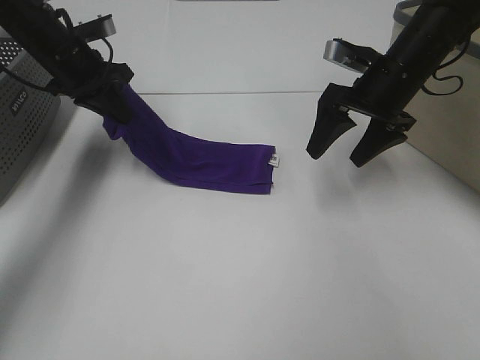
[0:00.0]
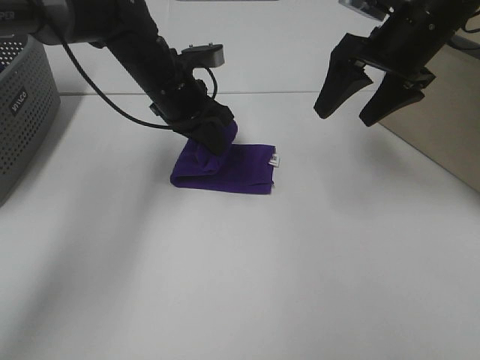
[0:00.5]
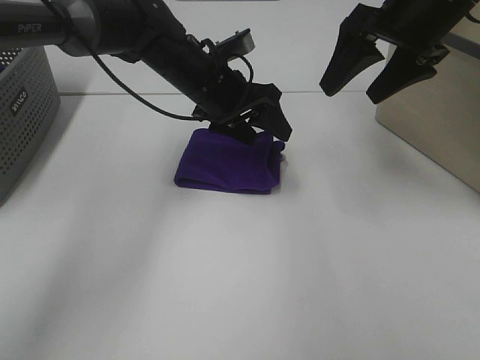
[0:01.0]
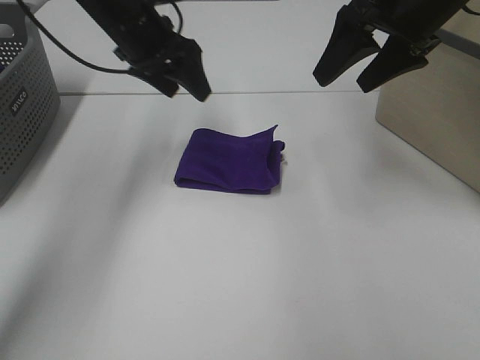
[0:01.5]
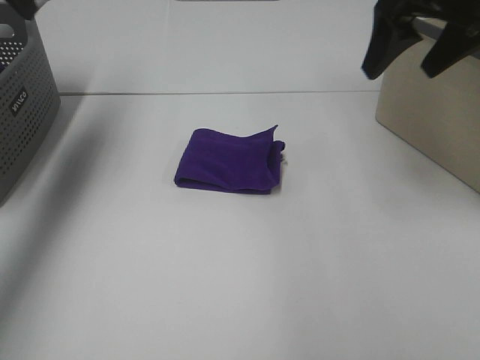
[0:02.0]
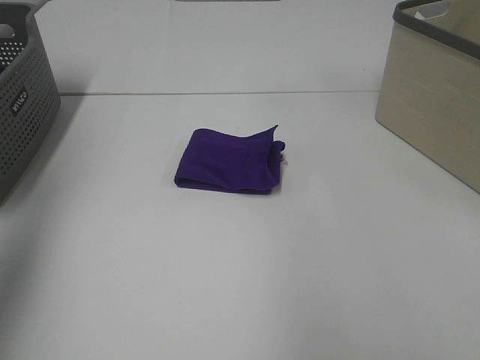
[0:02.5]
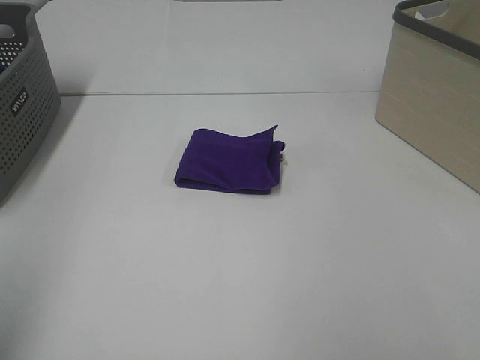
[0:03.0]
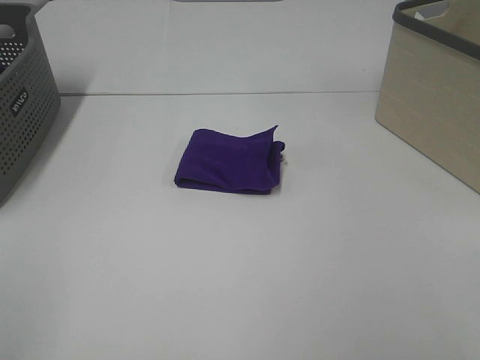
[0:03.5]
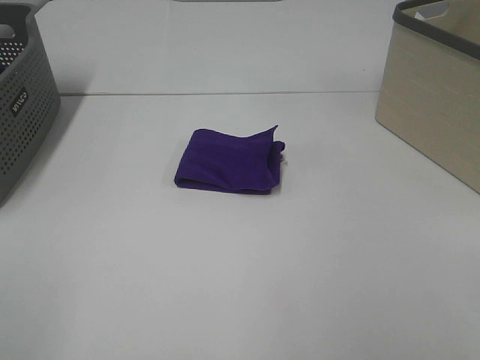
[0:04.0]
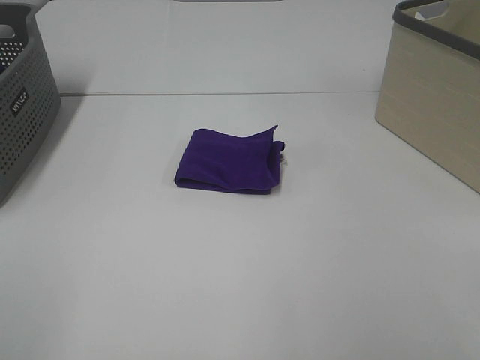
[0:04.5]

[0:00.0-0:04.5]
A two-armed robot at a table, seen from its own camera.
Task of the whole recording: Fold towels.
0:00.0 to 0:02.0: The two grippers go roughly 15 cm upward. The left gripper travels to the right and back again, roughly 20 cm each way, and opens.
0:02.0 to 0:04.5: Both grippers travel together backward, roughly 40 cm.

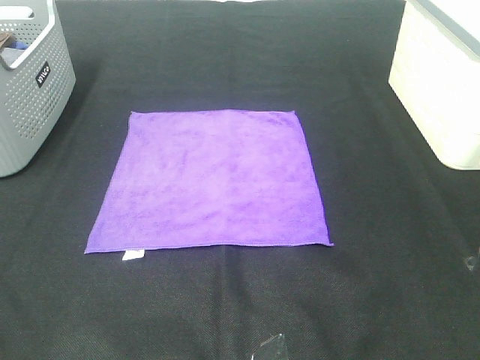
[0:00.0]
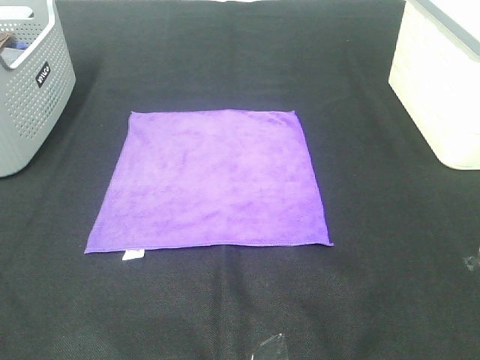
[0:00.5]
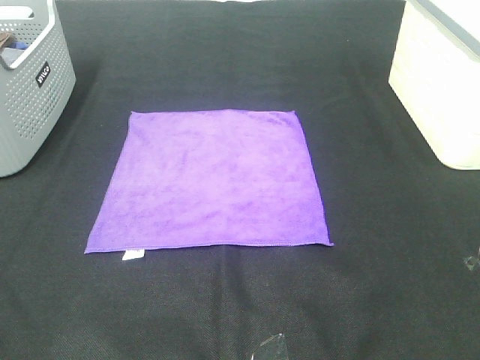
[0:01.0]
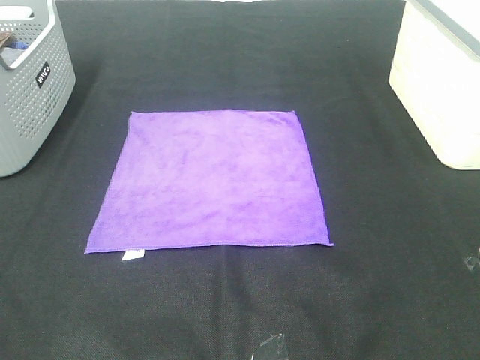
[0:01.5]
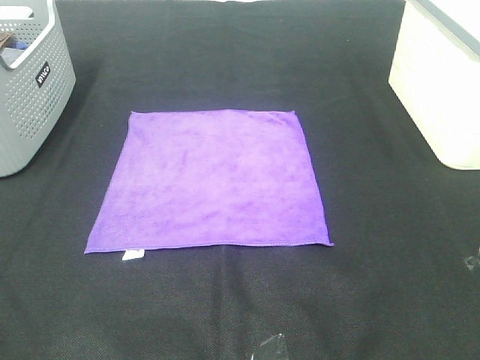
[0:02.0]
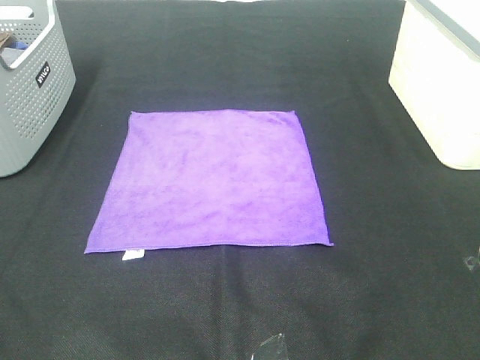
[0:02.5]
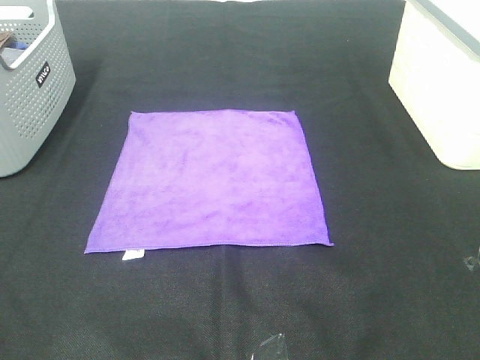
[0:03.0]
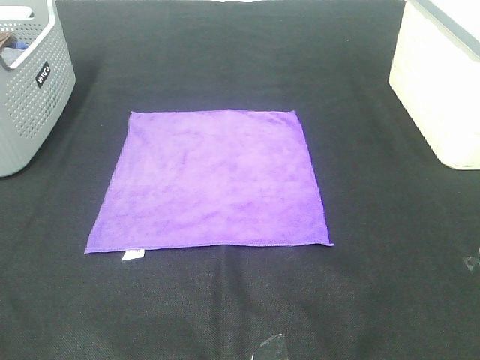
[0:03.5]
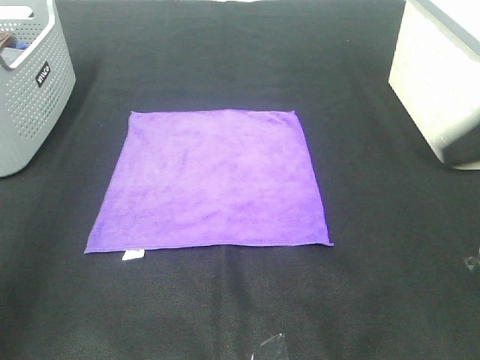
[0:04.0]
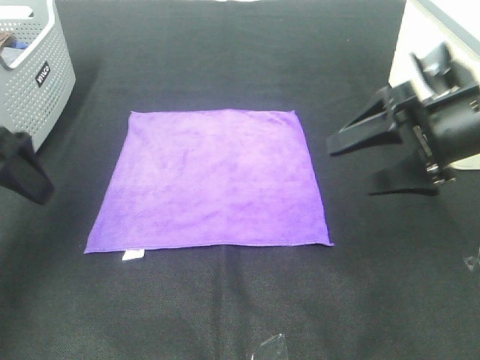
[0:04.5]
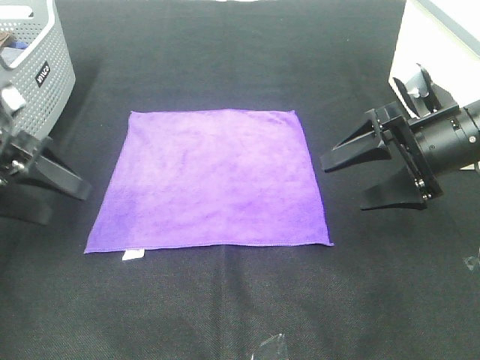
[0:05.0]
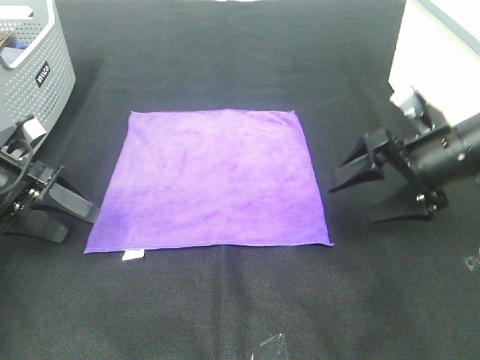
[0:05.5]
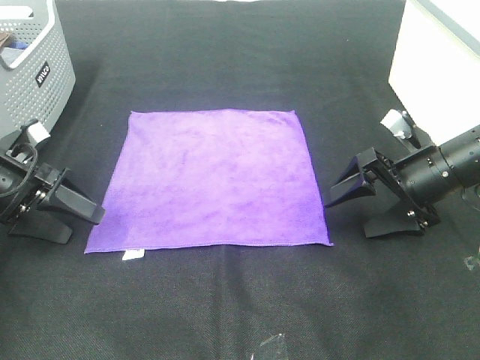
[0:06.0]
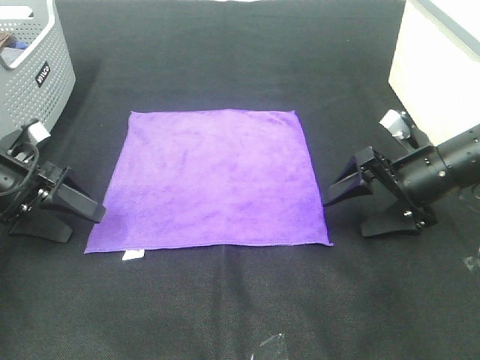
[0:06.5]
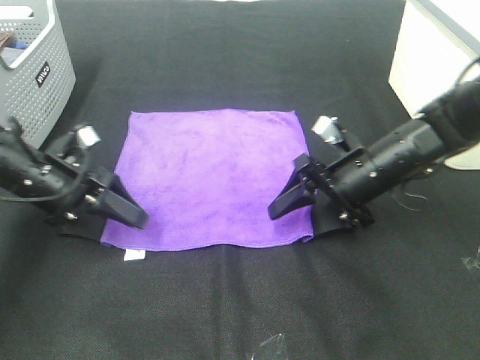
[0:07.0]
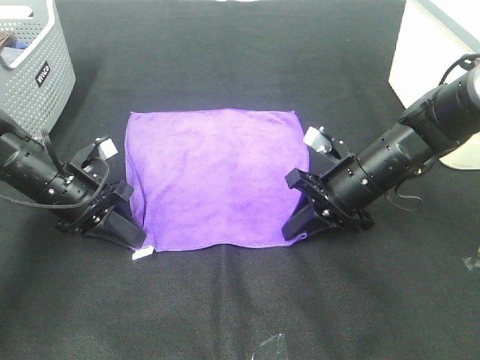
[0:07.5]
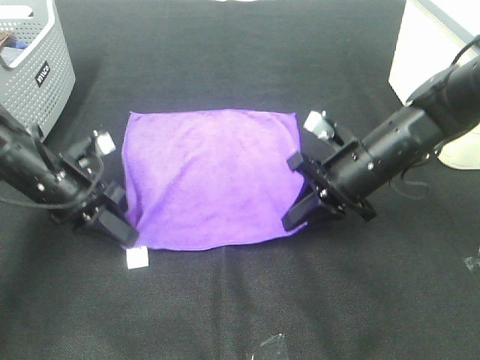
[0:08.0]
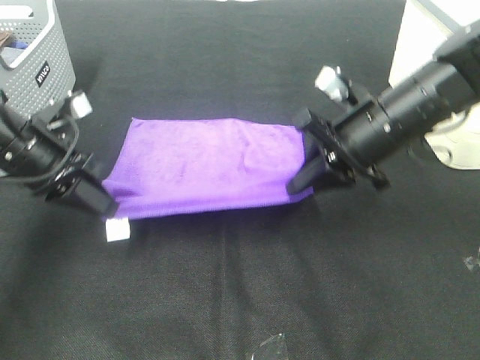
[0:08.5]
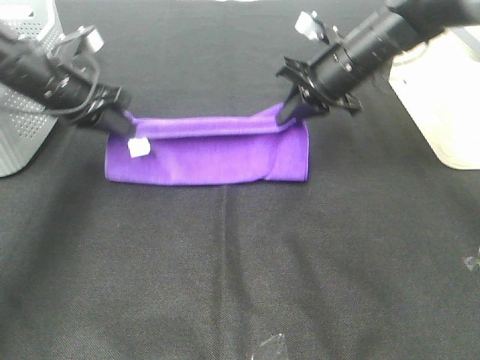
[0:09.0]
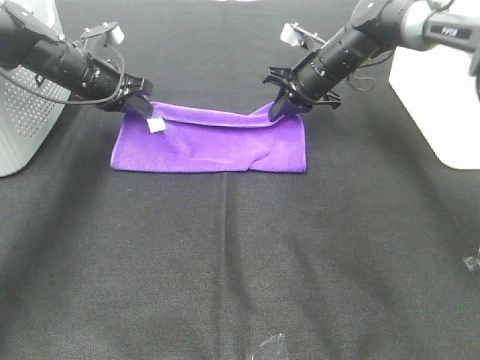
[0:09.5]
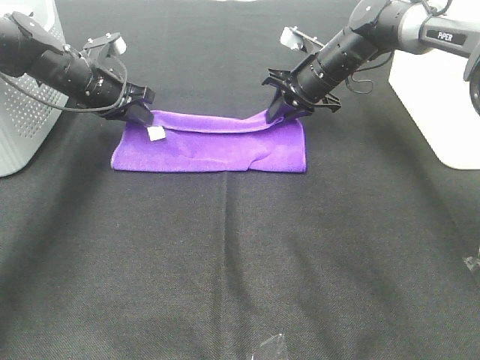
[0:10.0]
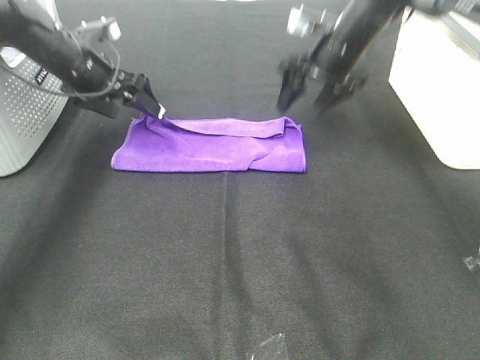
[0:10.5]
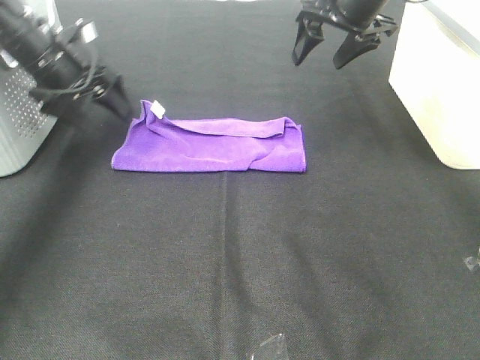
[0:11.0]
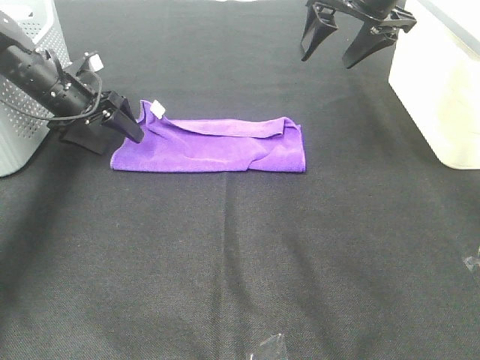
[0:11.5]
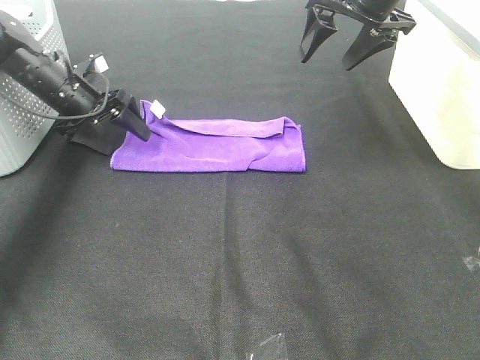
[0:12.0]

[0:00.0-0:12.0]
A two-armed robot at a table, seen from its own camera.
Task of the whole recording: Fold towels.
Step, 0:00.0 to 0:07.5: Left hand: grab the bottom left corner of purple towel.
Step, 0:00.0 to 0:07.5: Right hand: grab the bottom right corner of purple towel.
Step, 0:08.0 to 0:09.5: Left hand: fold the purple towel up.
Step, 0:08.0 to 0:09.5: Right hand: fold the purple towel up.
0:00.0 to 0:02.0: Neither gripper changes place.
0:02.0 to 0:04.0: The grippers both shift forward by approximately 20 cm.
0:04.0 to 0:06.0: Both grippers move downward and forward, about 30 cm.
0:06.0 to 0:08.0: The right gripper travels to the left by some 10 cm, and closes up. Meanwhile the left gripper travels to the right by about 10 cm, and closes its fingers.
0:08.0 to 0:10.0: The grippers both shift forward by some 20 cm.
0:10.0 to 0:12.0: The right gripper shifts about 15 cm upward and backward, and opens up. Meanwhile the left gripper opens its fingers.

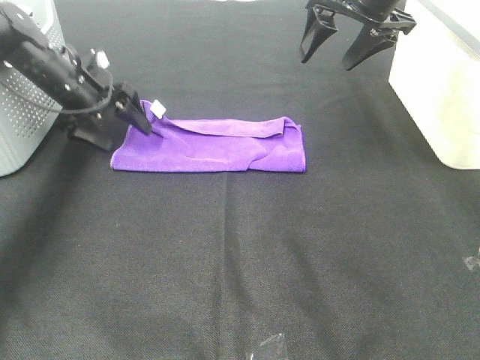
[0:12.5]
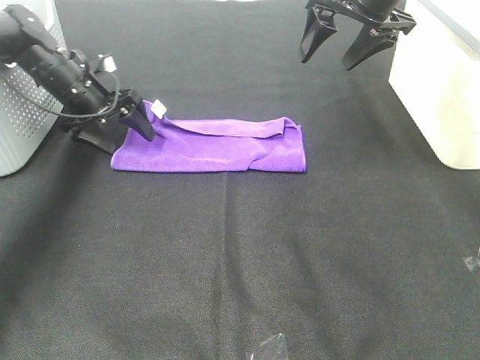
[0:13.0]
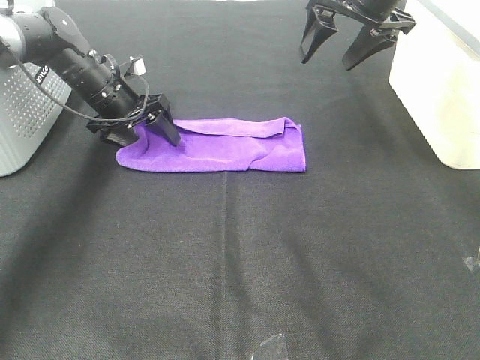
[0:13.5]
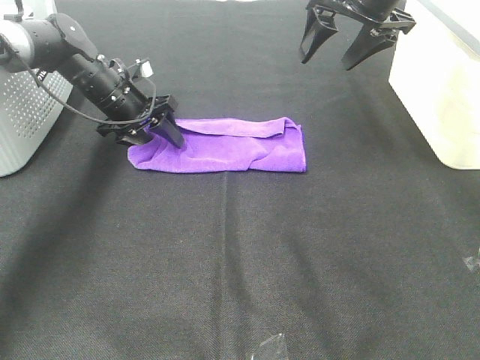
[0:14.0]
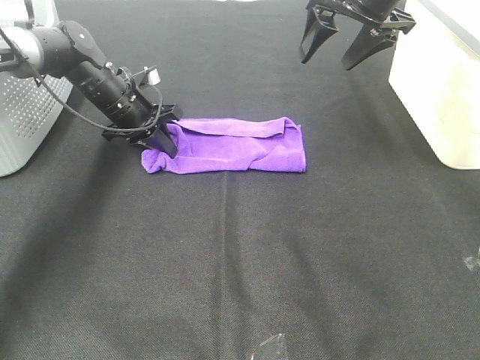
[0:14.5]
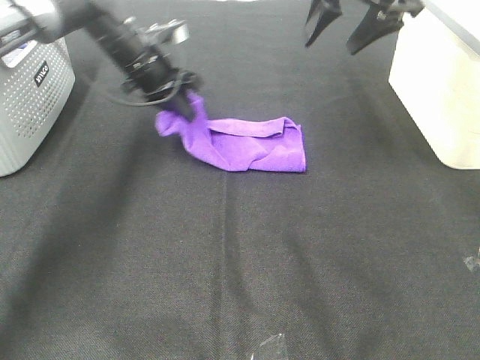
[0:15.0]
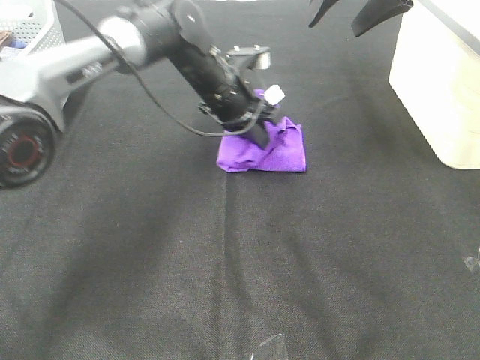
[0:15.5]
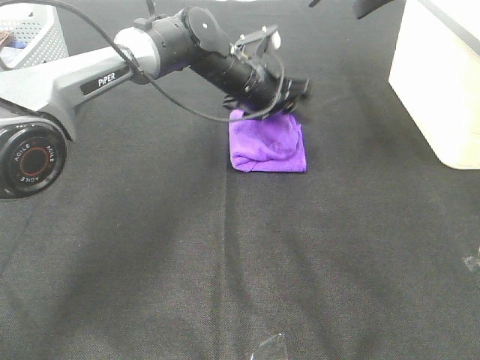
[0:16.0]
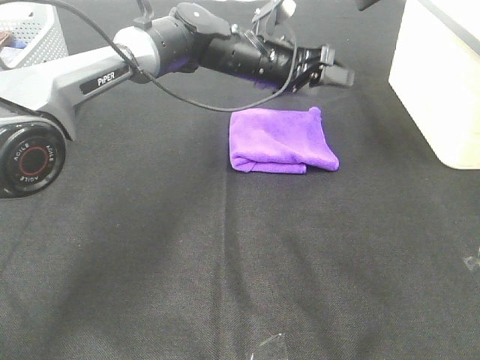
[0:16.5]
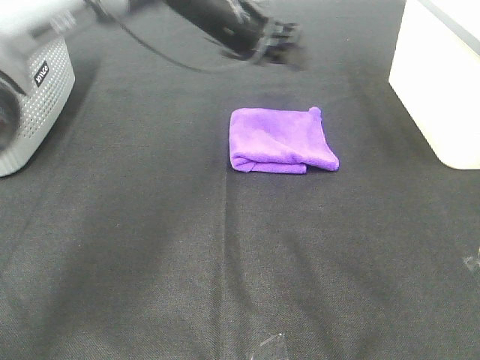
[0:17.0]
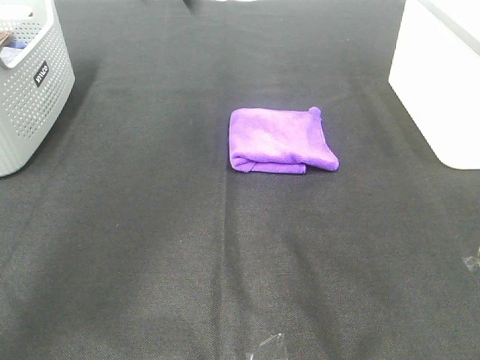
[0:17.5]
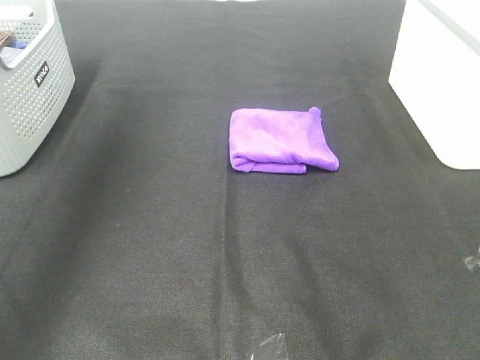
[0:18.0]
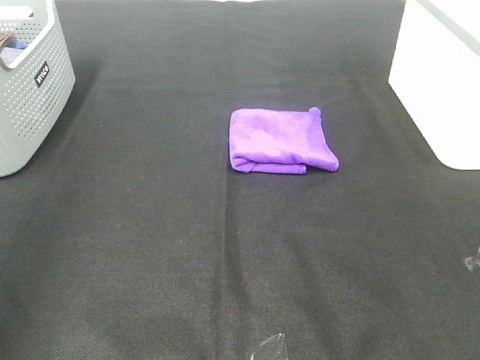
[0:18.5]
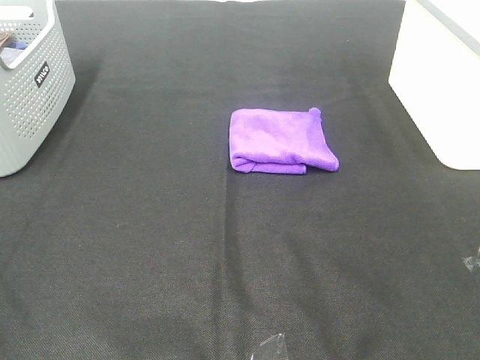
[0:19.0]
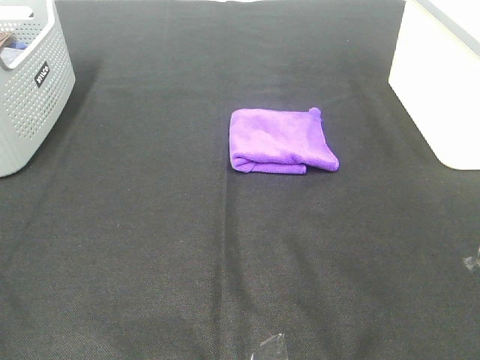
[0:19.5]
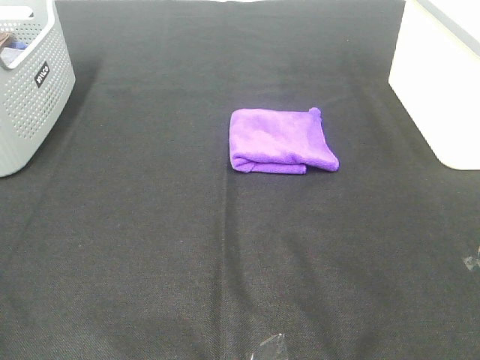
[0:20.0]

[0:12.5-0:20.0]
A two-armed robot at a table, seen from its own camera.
Task of the whole recording: Fold towels.
Step, 0:12.5 to 0:15.5: Left hand: fold the purple towel from left to right.
0:12.5 to 0:14.5: The left gripper moves to the right, roughly 5 cm, and closes up.
0:14.5 to 0:16.5: The right gripper is displaced upward by approximately 10 cm, while the left gripper goes about 20 cm to the right, and opens up.
0:16.5 to 0:18.0: The right gripper is displaced backward by roughly 30 cm. Meanwhile the left gripper goes roughly 40 cm to the left, upward and backward.
0:18.0 to 0:20.0: The left gripper shifts approximately 35 cm backward and downward.
